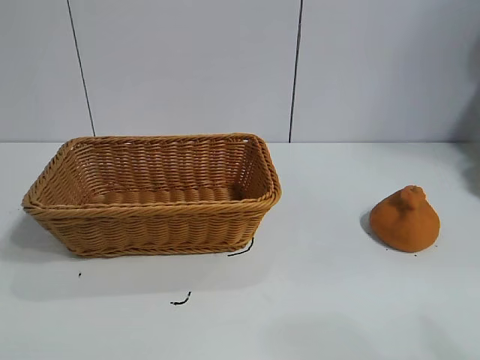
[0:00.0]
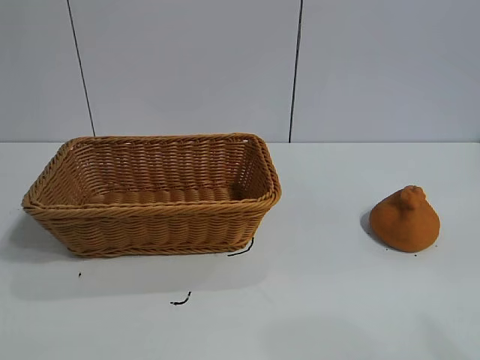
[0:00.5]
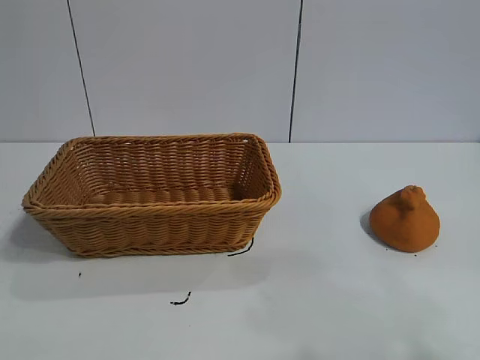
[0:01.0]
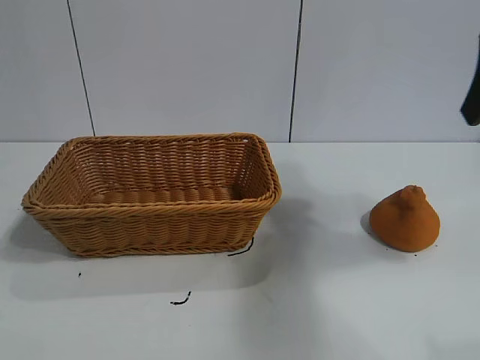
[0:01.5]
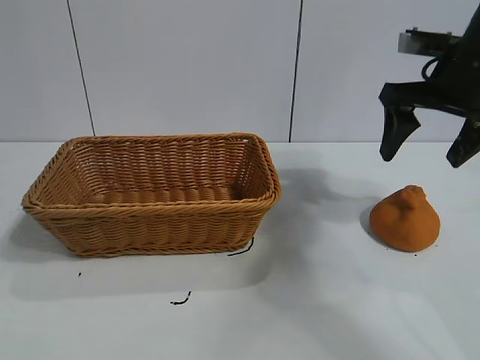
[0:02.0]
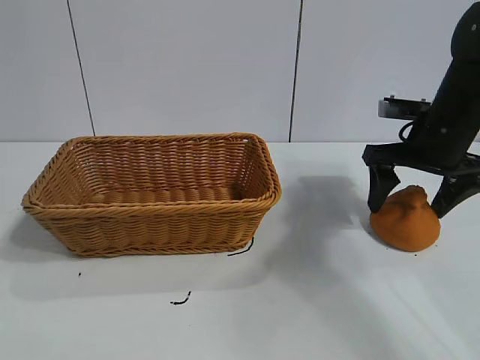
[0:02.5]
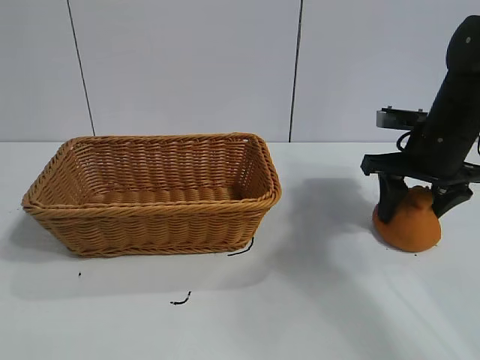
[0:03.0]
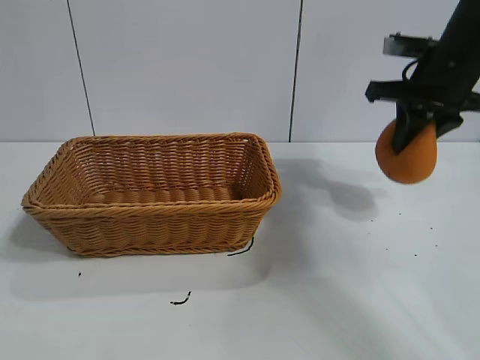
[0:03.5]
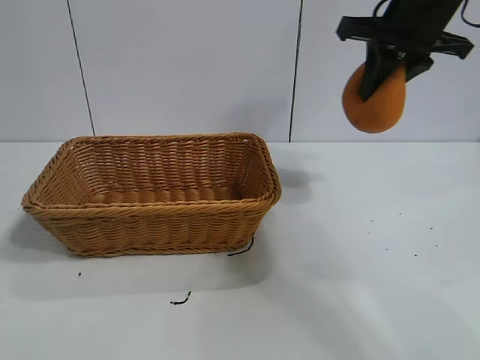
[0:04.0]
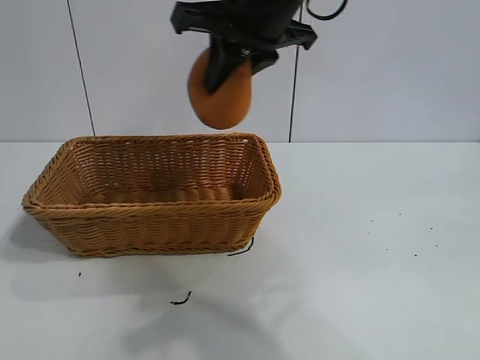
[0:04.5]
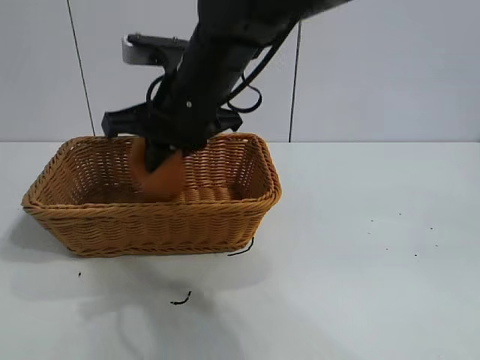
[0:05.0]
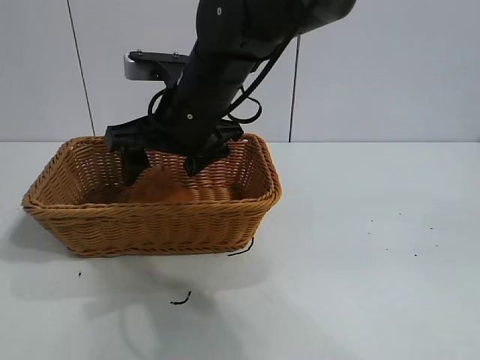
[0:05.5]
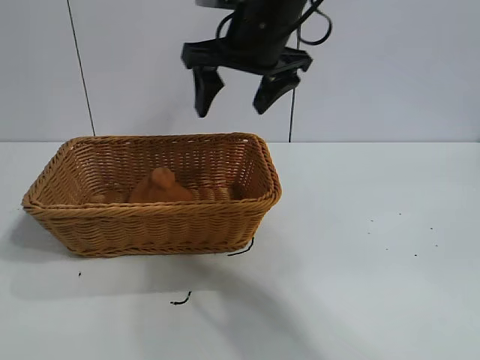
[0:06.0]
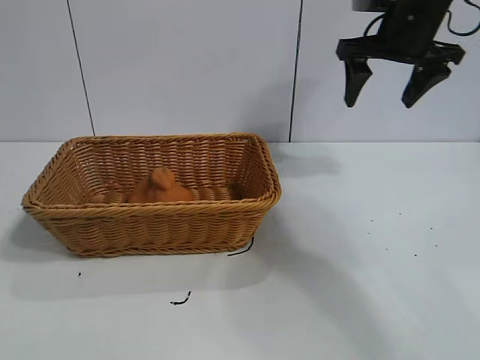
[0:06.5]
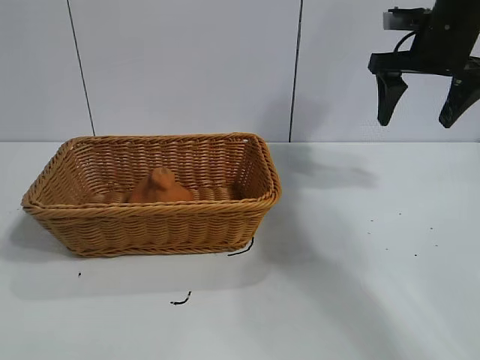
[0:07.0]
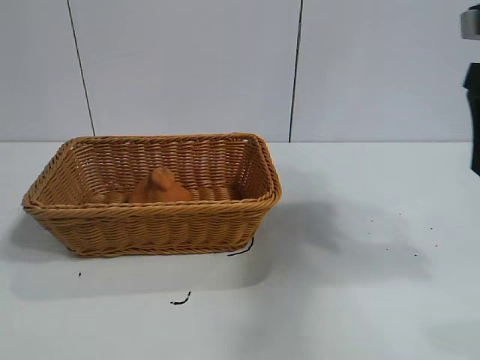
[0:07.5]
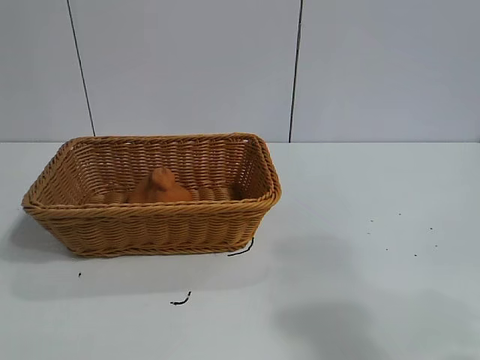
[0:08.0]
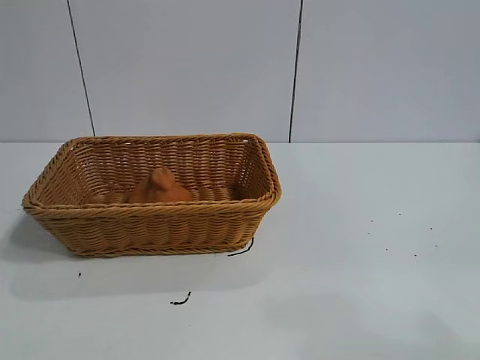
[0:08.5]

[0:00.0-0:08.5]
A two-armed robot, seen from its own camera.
Task of the whole recording: pick up the orange and put it into the basket.
Step, 0:01.0 to 0:03.0: Grasp the orange with right gripper.
Step, 0:03.5 to 0:05.5: Place the orange in the basket with right gripper.

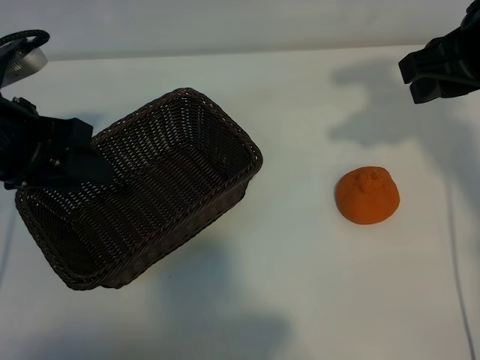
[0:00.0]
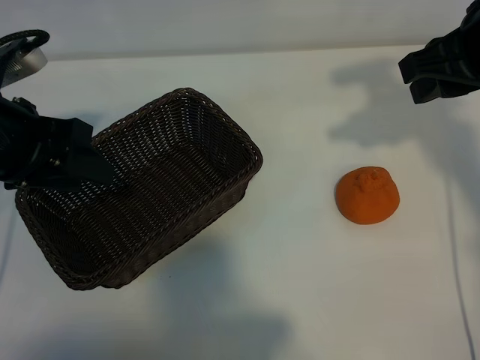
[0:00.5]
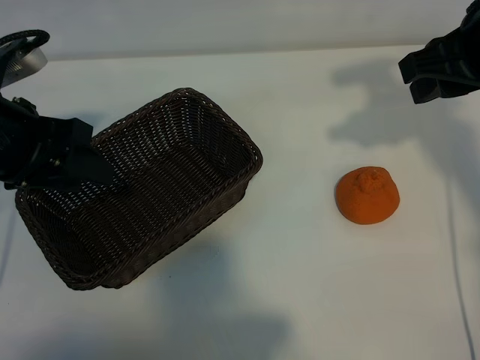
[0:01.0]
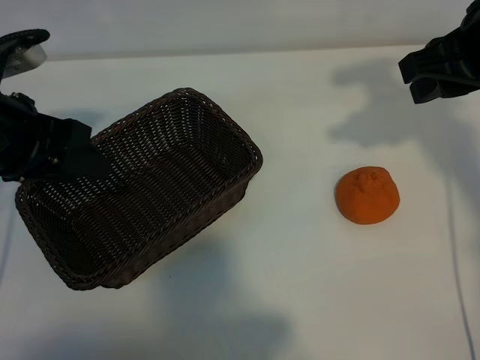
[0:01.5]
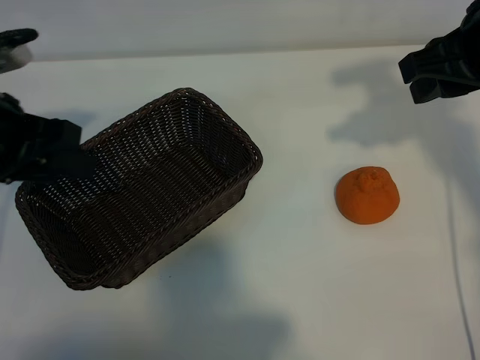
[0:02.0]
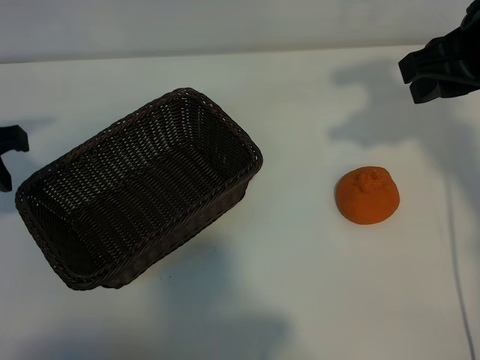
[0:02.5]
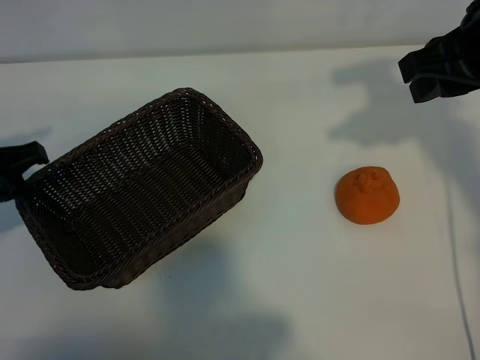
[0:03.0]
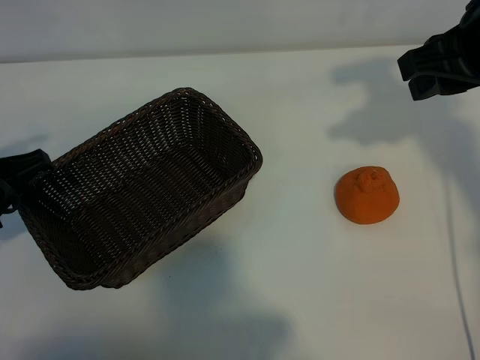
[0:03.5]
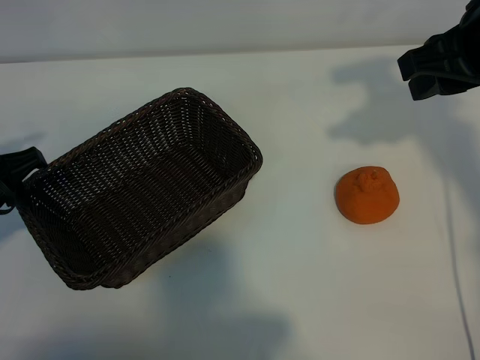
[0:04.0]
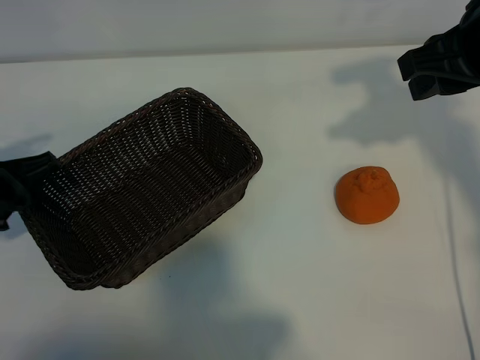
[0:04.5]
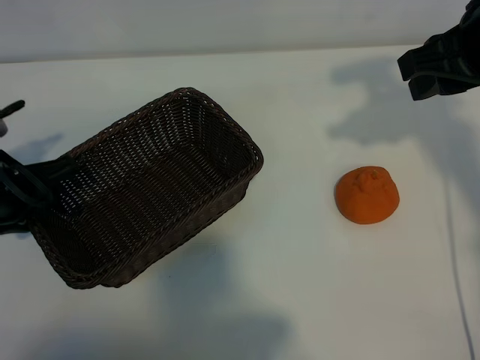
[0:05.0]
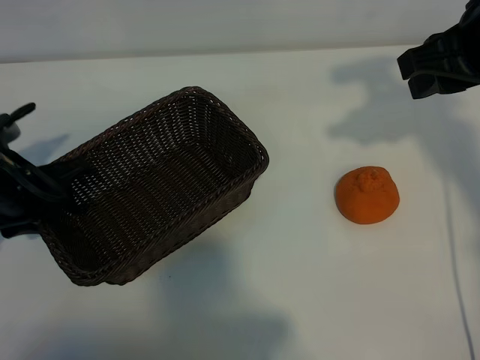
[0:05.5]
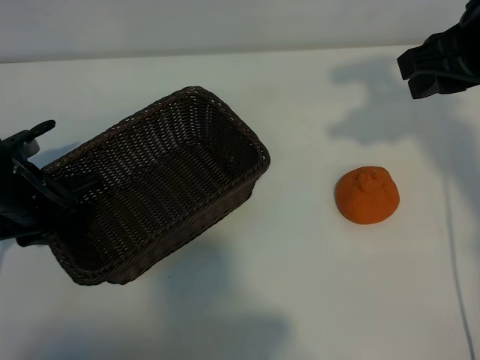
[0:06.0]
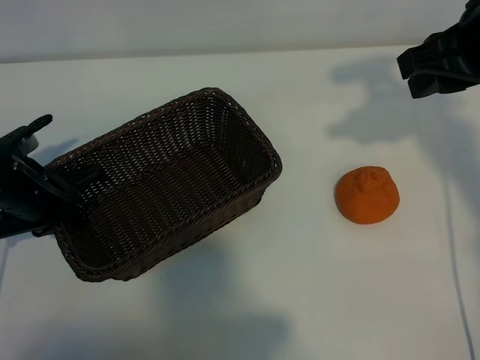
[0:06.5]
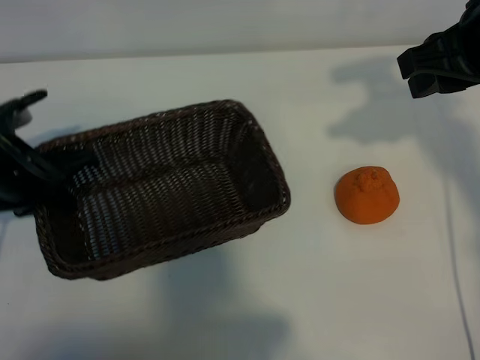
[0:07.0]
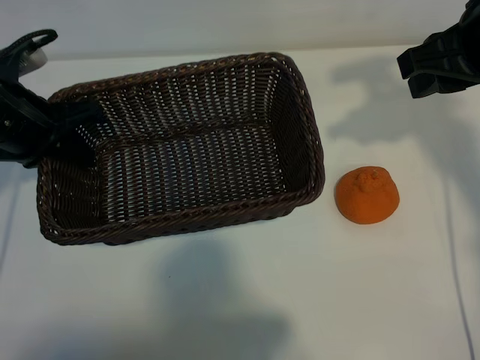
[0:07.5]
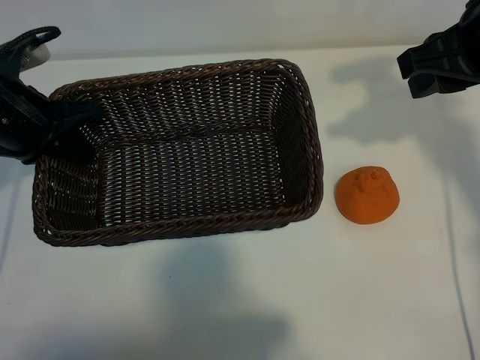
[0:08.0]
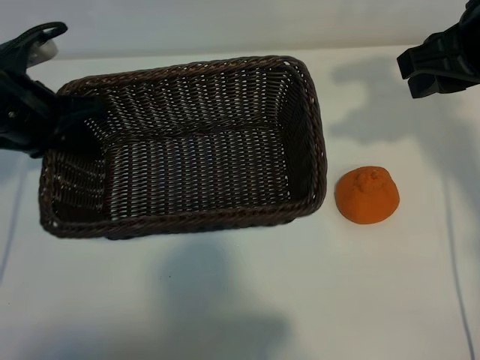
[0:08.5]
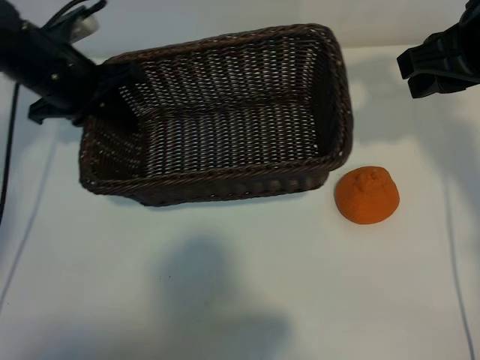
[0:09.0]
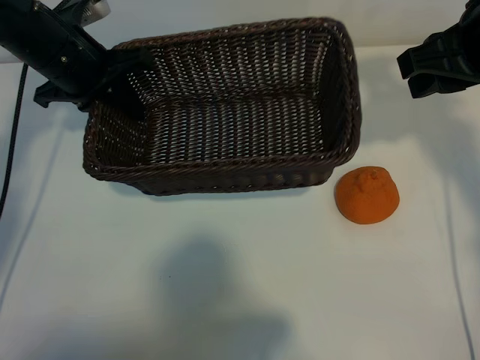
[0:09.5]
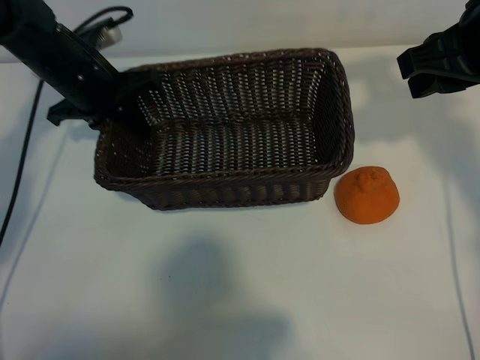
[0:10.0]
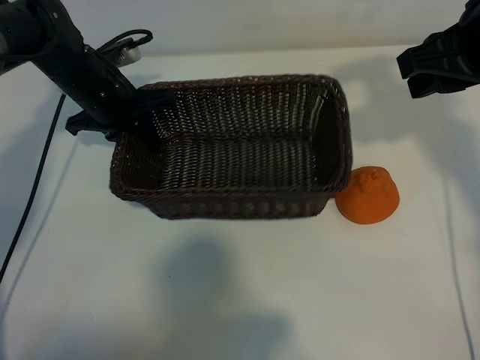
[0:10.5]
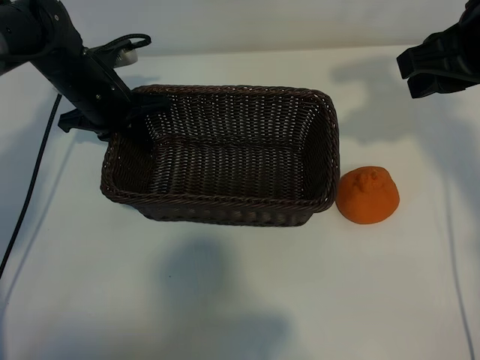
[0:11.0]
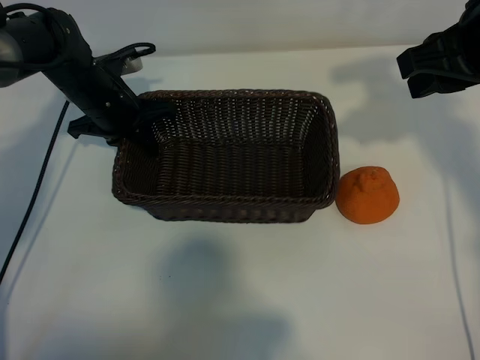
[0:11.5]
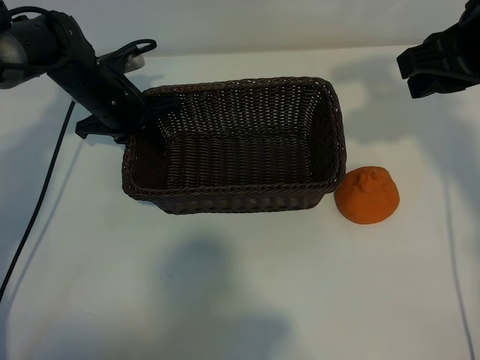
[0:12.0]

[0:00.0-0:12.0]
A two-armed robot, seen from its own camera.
Task of the whole recording: pick up the orange and put it into the basket.
Step, 0:01.5 to 0:06.0: Grasp the basket with left gripper.

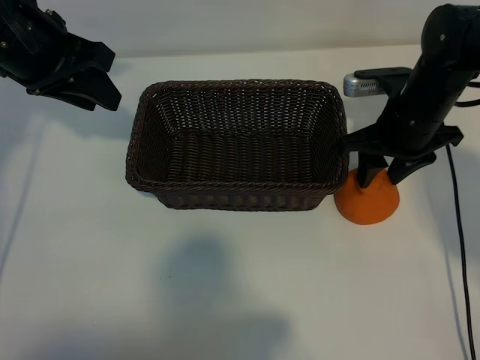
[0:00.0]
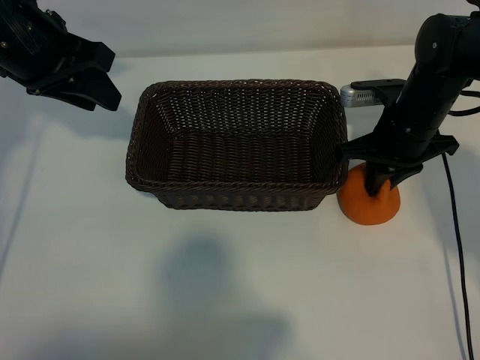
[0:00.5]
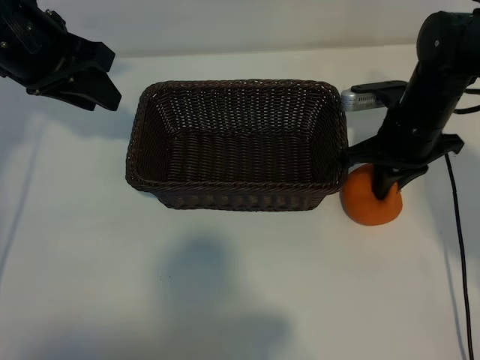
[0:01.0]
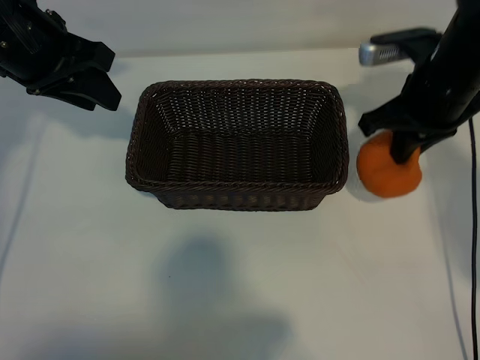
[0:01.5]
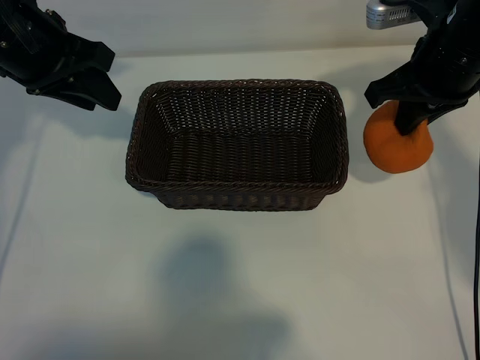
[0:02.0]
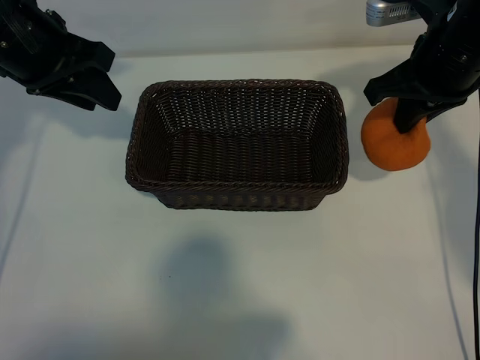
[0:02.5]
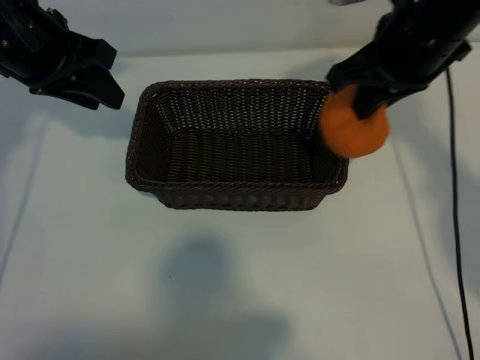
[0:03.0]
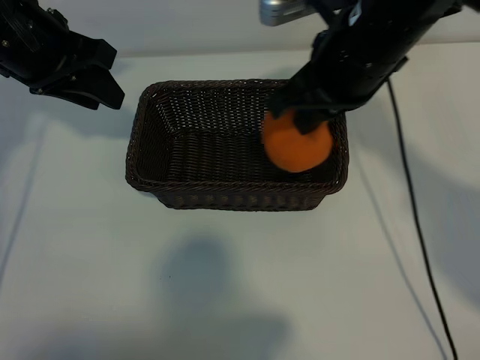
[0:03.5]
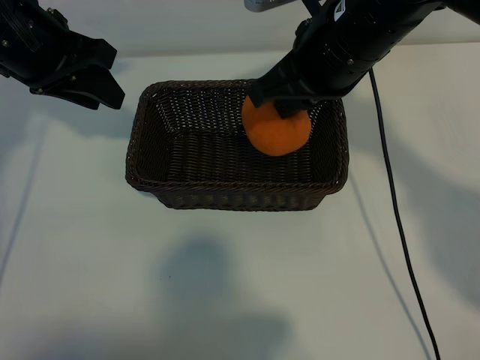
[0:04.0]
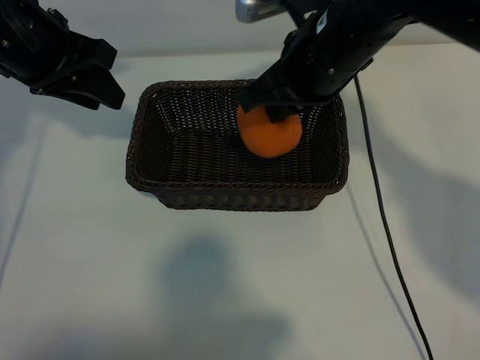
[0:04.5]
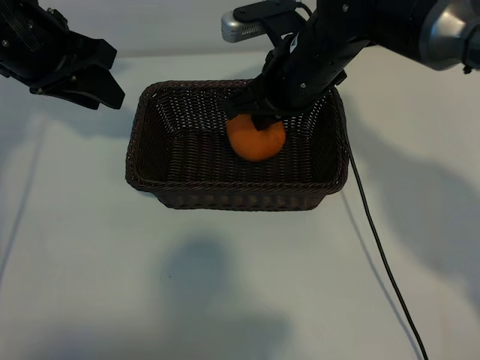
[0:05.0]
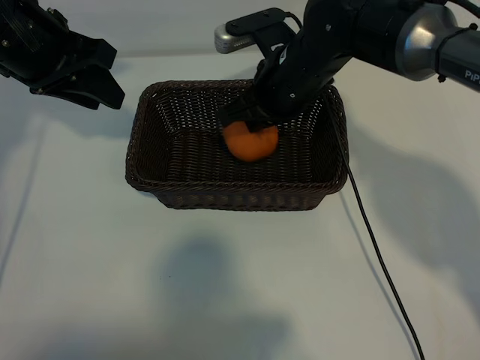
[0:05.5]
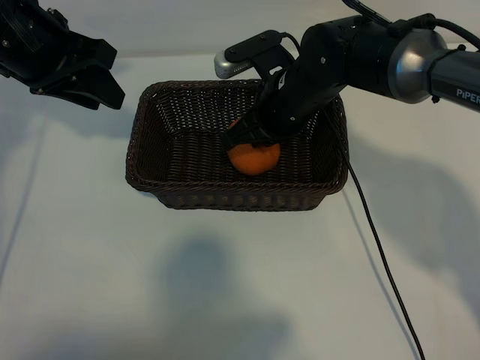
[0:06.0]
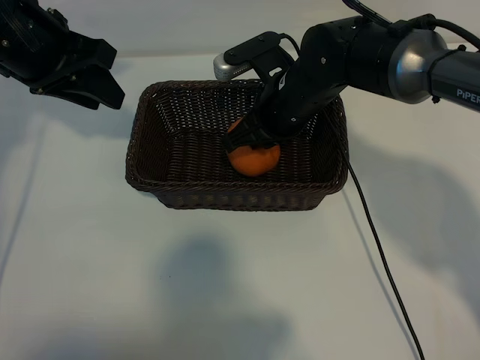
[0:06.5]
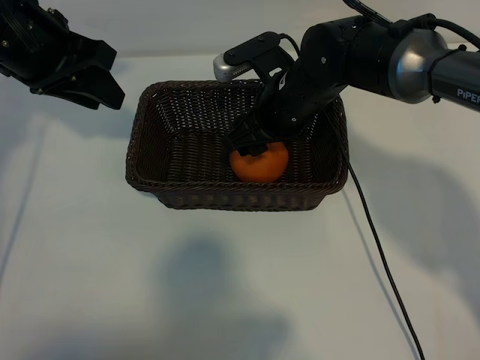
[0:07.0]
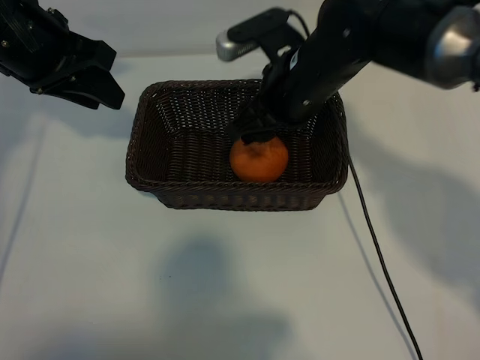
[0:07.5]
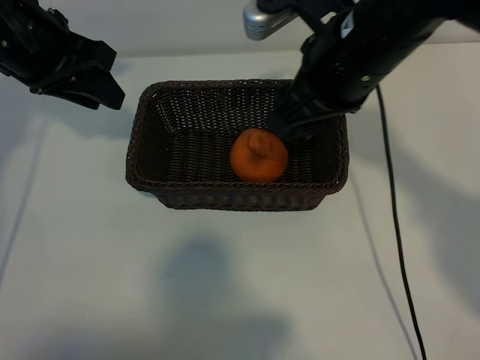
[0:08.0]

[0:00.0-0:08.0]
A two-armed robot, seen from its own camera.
Task of the whole recording: pick up the orange and put it into the basket.
Step, 0:01.0 to 0:06.5: Place the orange in the basket with right gripper.
